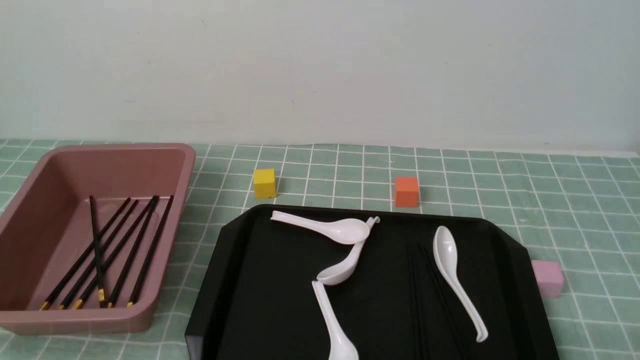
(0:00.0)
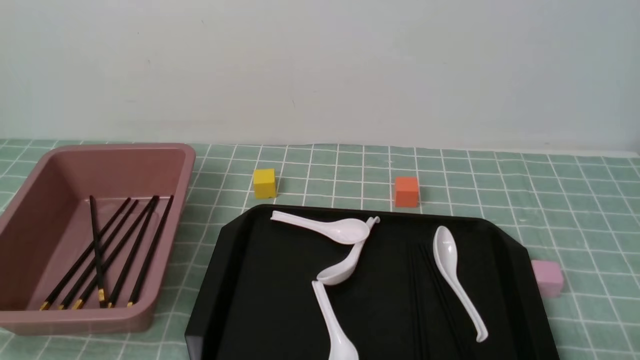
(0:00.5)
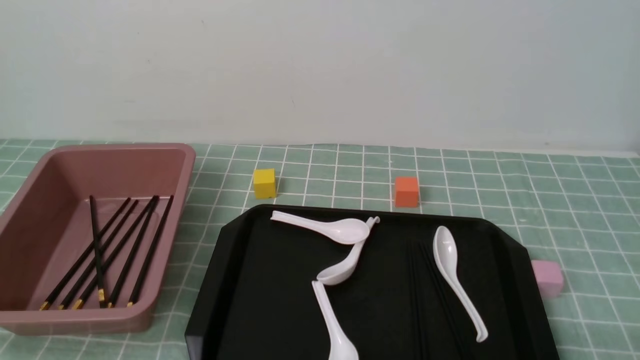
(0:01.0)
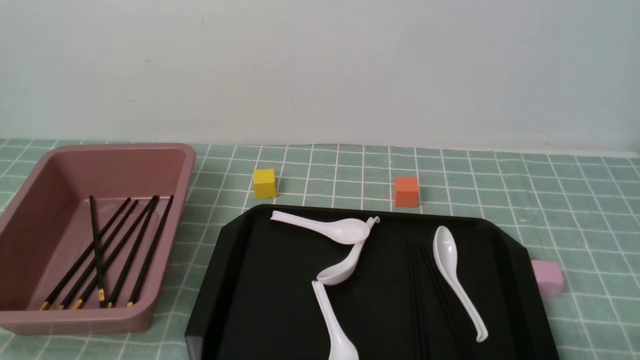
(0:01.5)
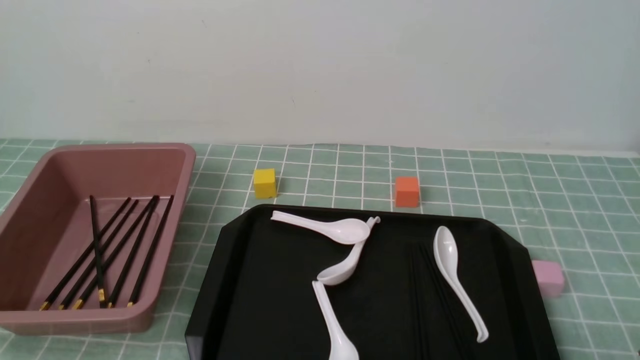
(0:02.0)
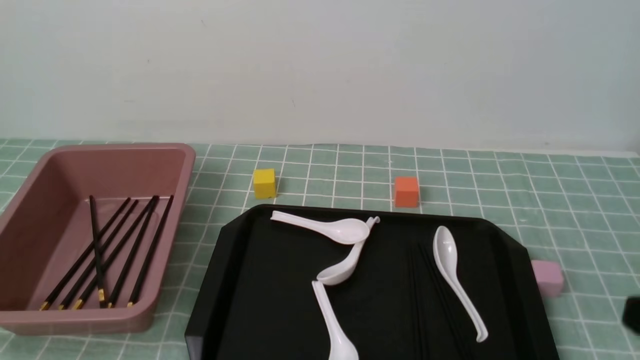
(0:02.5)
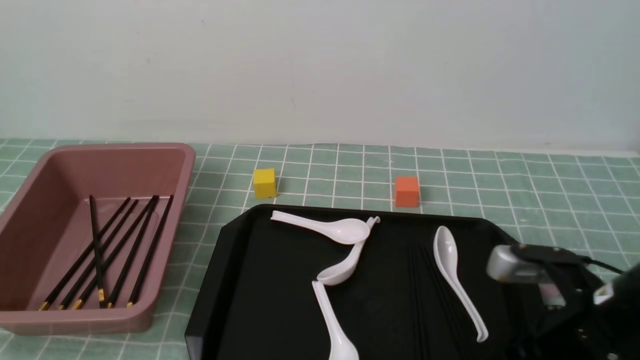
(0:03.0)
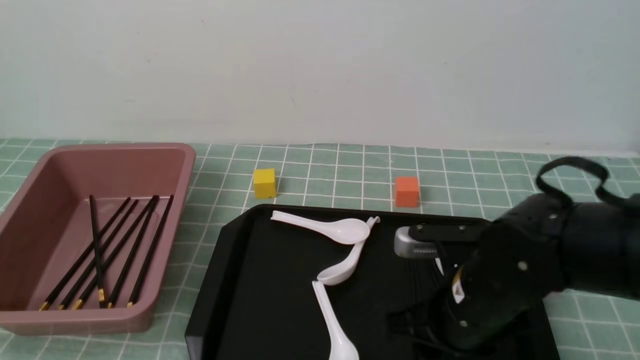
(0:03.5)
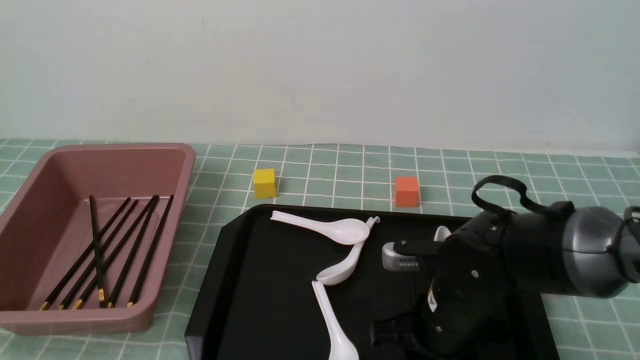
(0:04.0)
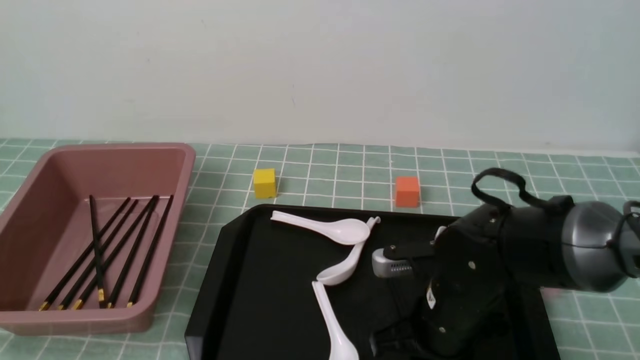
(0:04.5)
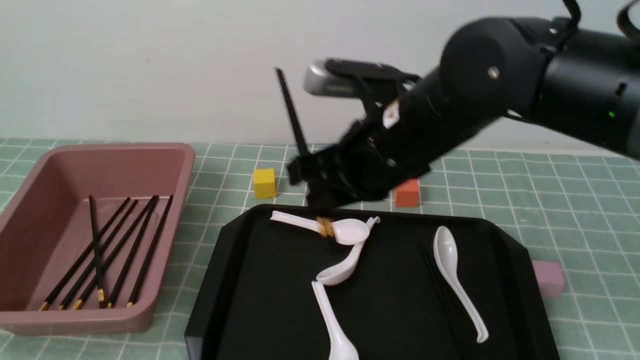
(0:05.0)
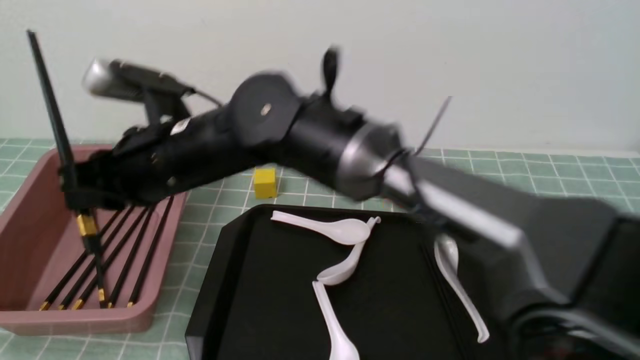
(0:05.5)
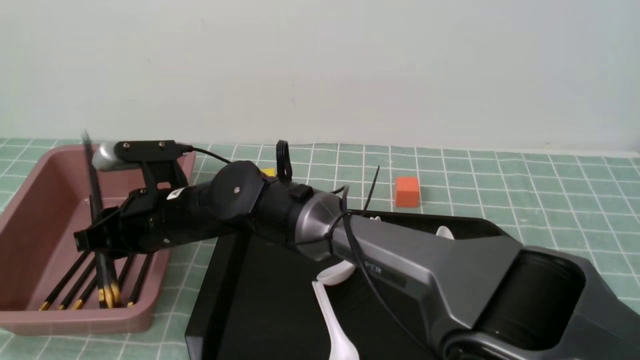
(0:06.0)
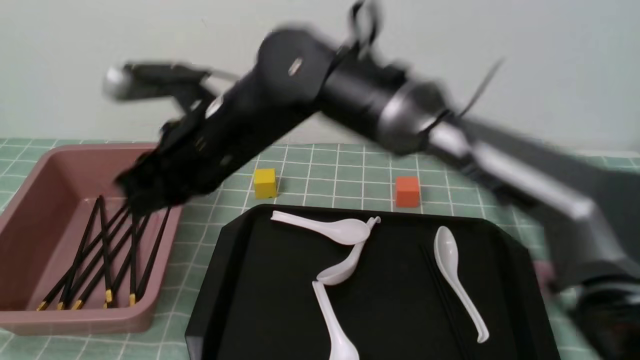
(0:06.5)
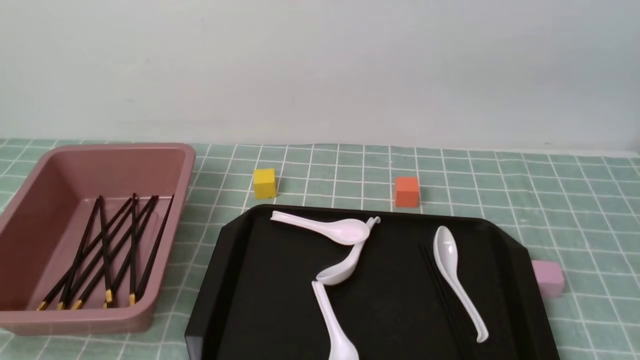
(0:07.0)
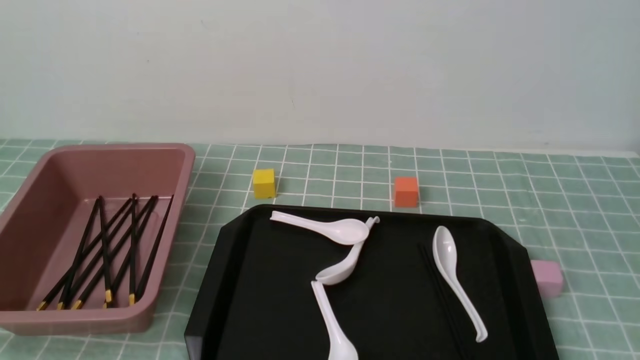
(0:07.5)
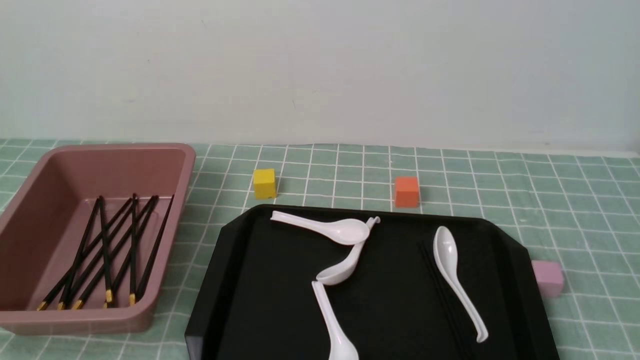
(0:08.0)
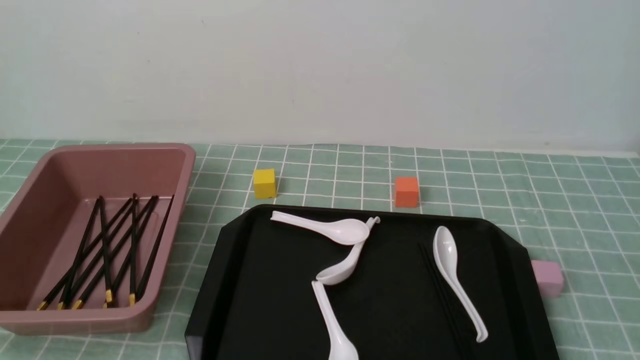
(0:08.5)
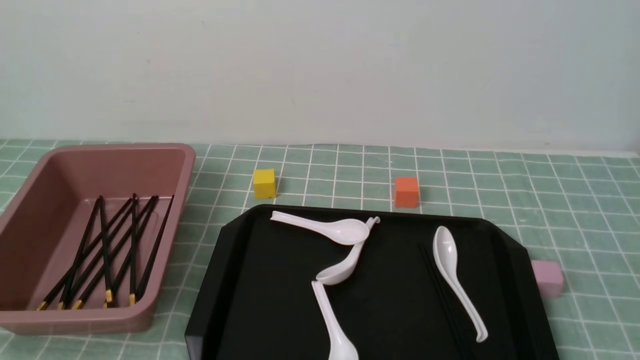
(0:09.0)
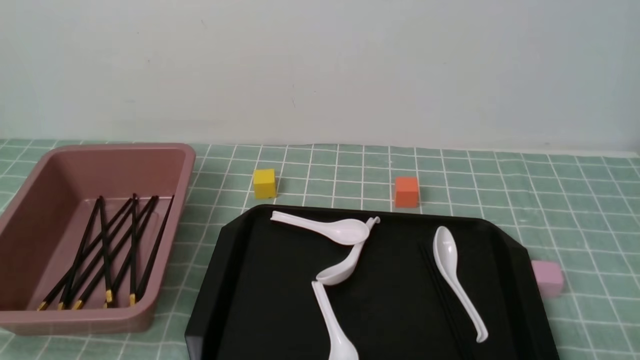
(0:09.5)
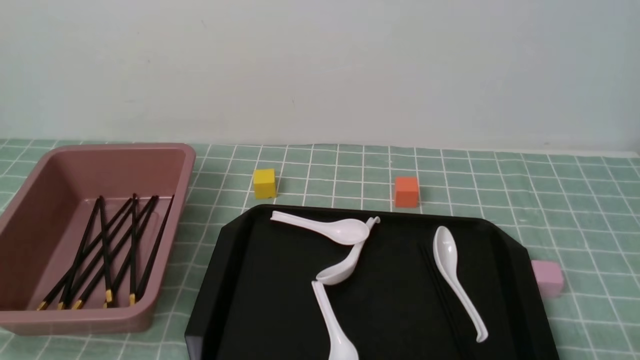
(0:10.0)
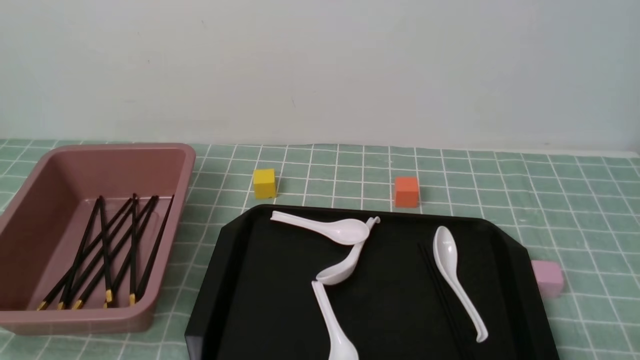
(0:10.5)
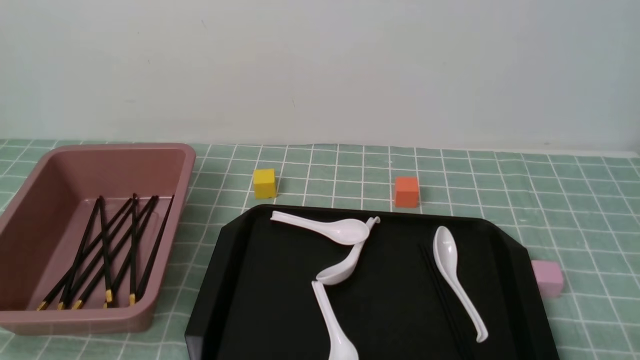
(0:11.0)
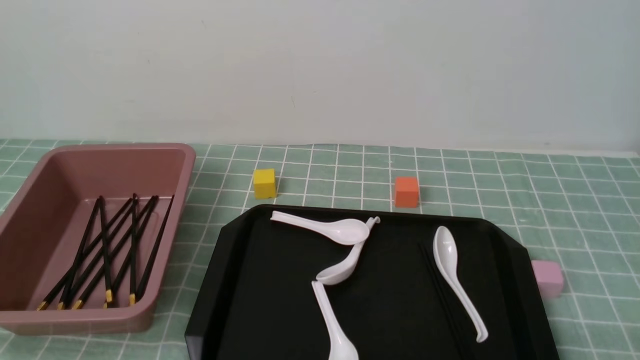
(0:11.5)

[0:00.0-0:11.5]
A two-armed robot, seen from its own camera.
Step, 0:00.0 to 0:04.5: use the right arm to grab a pair of chopsticks.
Step, 0:05.0 to 0:06.0: use the right arm to put the chopsticks into the lunch box.
0:02.0 to 0:04.0: The right gripper is displaced forward and to the left by approximately 25 cm, and closes, then opens again.
0:04.0 to 0:06.0: The right gripper is displaced to the left by roughly 25 cm, and closes, then reopens.
0:06.0 to 0:07.5: The right gripper shifts about 60 cm to the right, backward and upward, and closes up.
0:09.5 to 0:11.5: The two grippers keep their place.

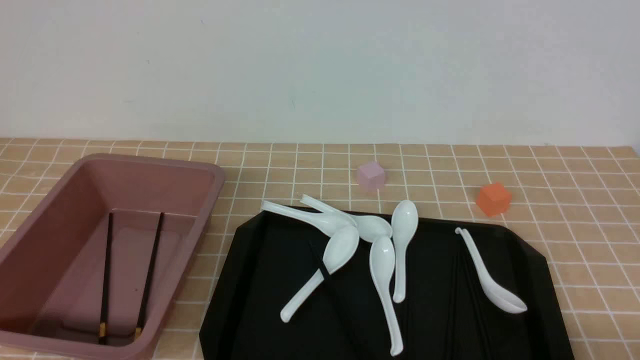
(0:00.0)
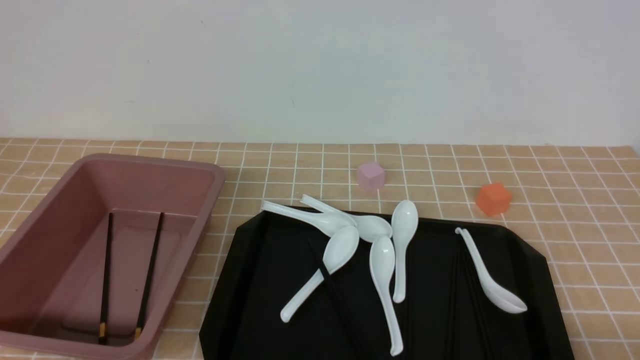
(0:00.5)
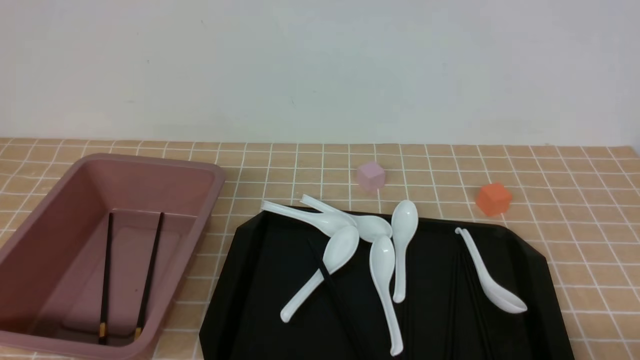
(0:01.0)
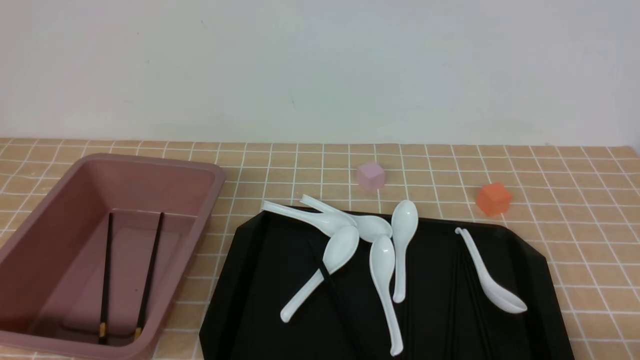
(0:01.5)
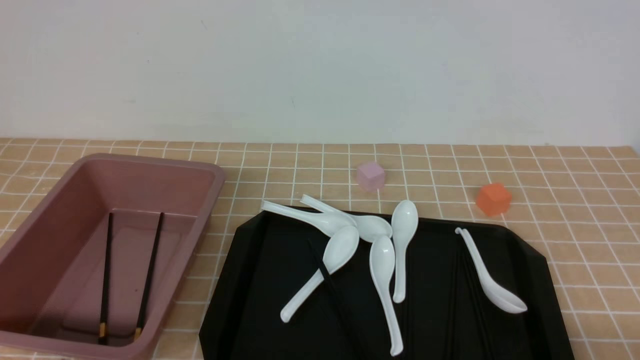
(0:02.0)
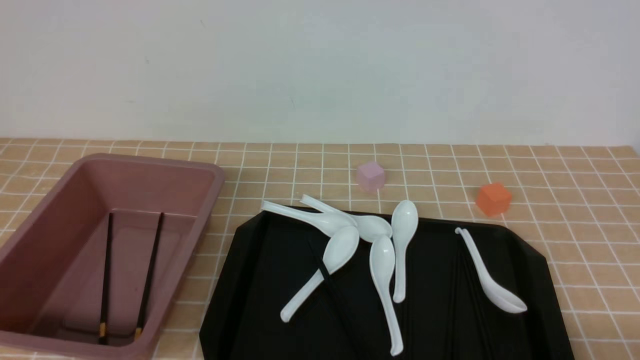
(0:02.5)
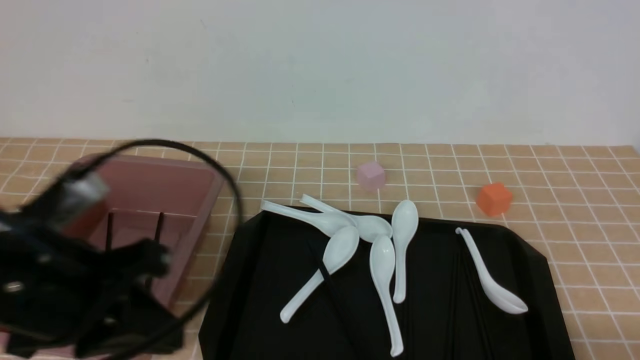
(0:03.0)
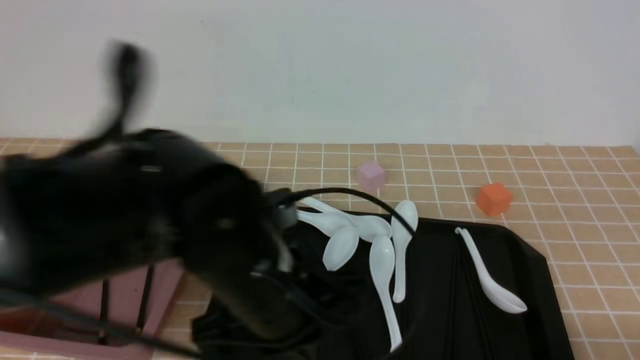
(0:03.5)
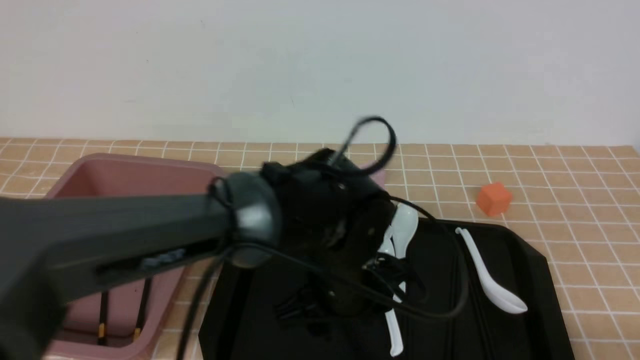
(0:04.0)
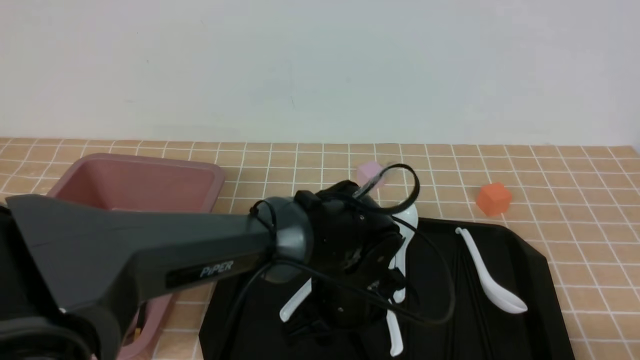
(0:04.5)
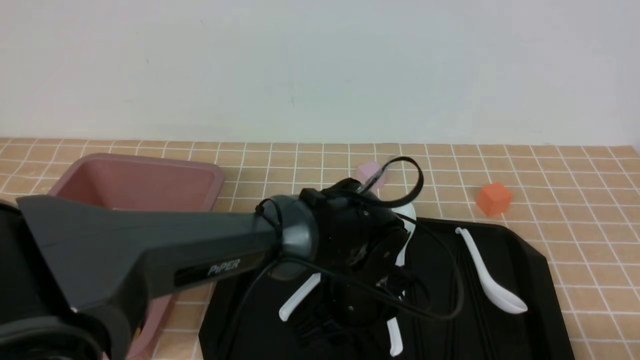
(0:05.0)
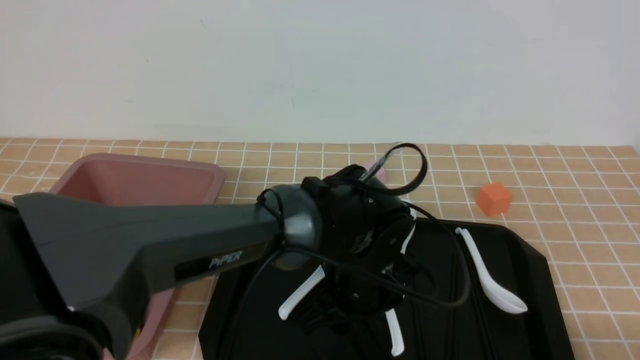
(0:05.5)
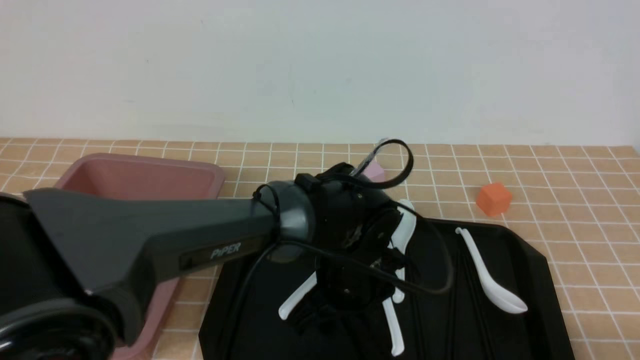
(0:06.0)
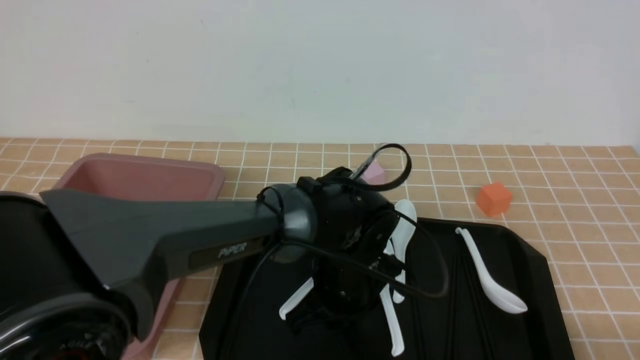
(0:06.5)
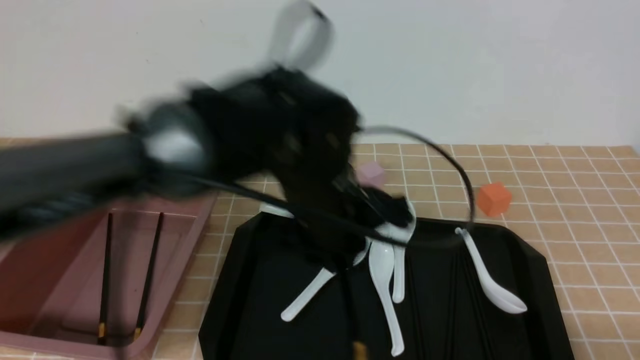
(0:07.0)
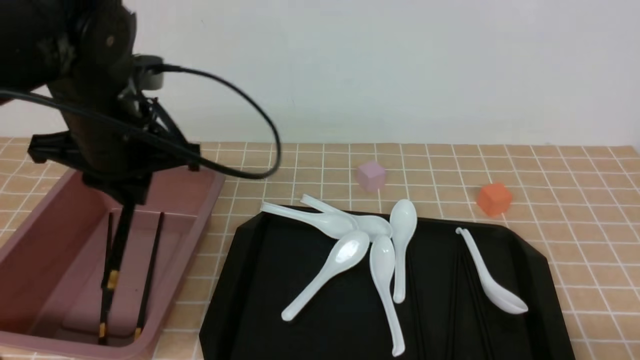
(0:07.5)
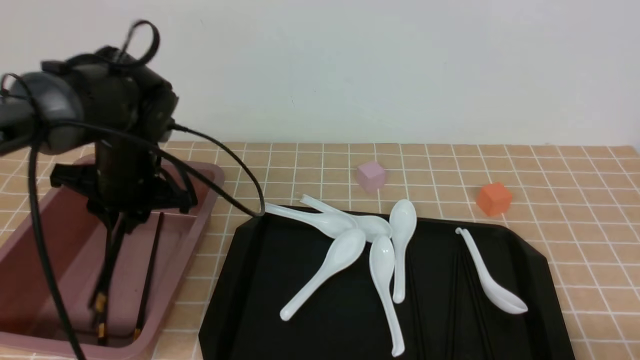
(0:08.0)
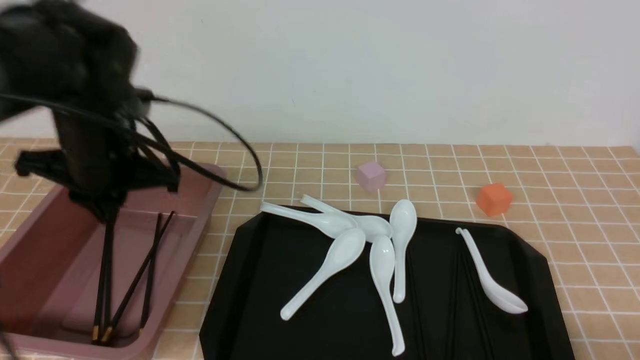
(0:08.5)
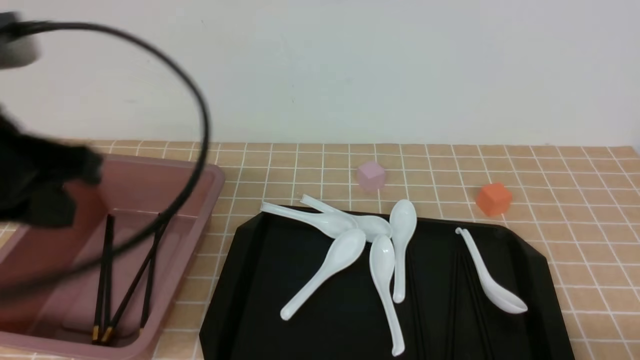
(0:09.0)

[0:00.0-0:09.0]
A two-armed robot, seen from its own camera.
Step, 0:00.0 to 0:06.5: use the left arm to grab a pair of chopsticks.
Step, 0:07.0 to 0:08.5: use the left arm to put the chopsticks into the lunch box.
0:02.0 to 0:04.5: The left gripper moves to the right and forward, about 35 cm, and opens up.
0:04.5 to 0:07.0: The left gripper is displaced upward and to the left by approximately 15 cm, and closes.
0:07.0 to 0:09.0: The left gripper moves to the left, backward and upward, some 25 cm.
